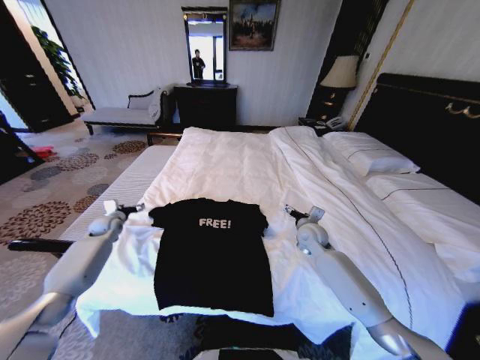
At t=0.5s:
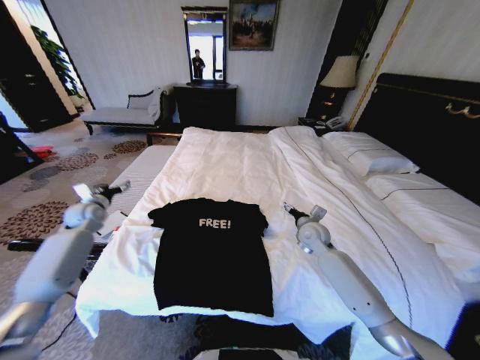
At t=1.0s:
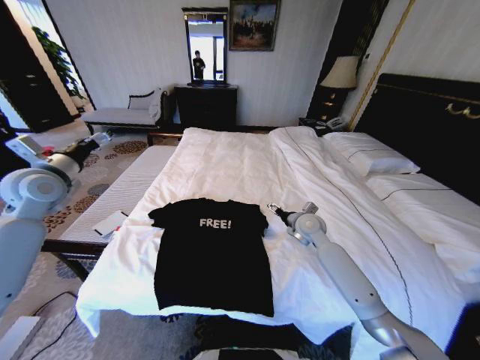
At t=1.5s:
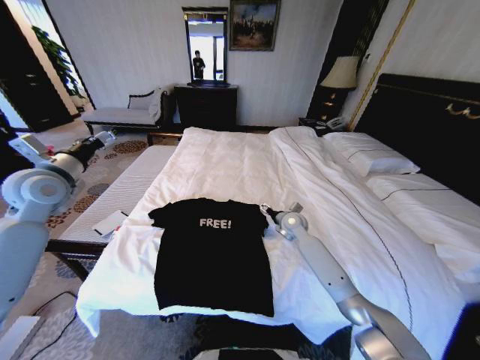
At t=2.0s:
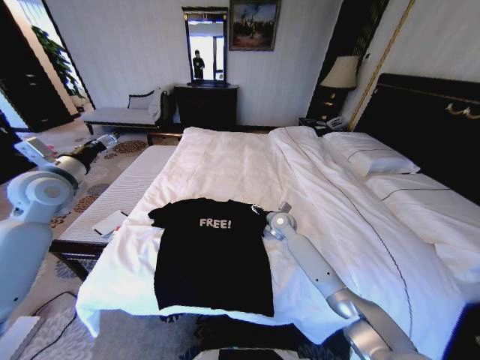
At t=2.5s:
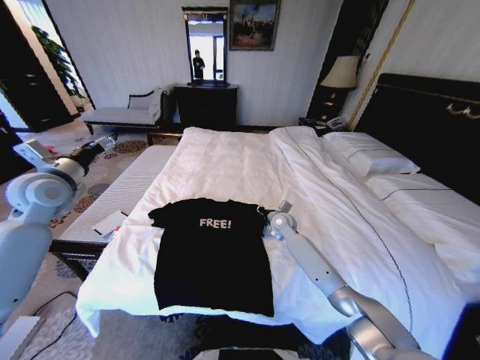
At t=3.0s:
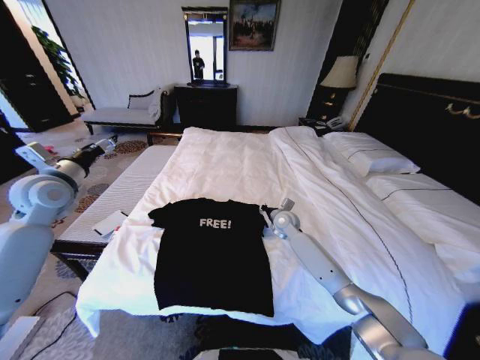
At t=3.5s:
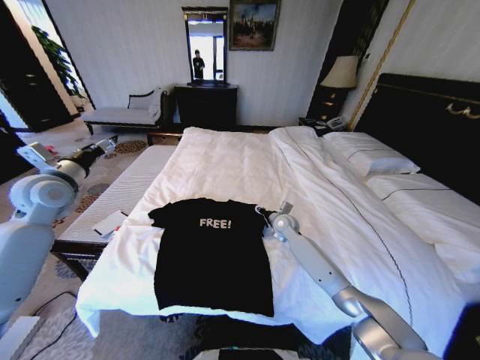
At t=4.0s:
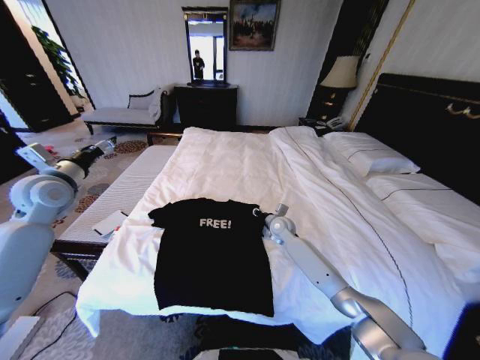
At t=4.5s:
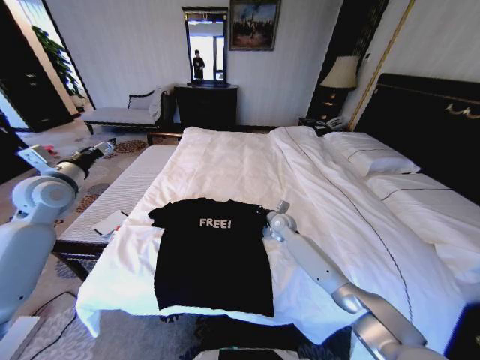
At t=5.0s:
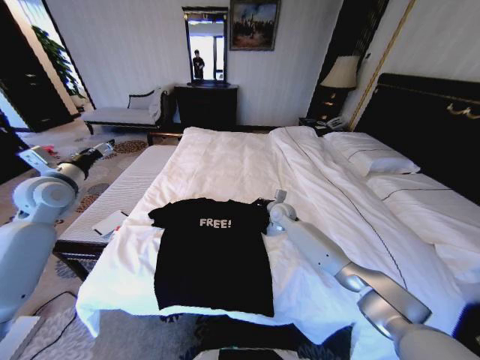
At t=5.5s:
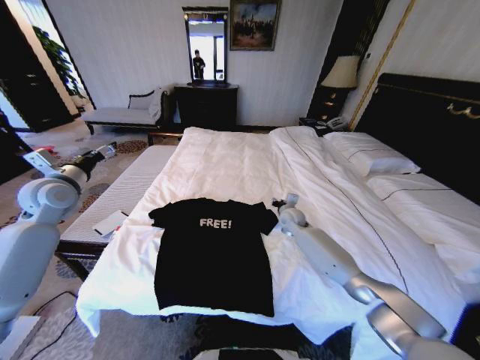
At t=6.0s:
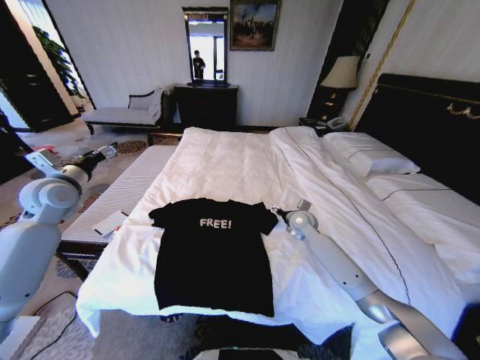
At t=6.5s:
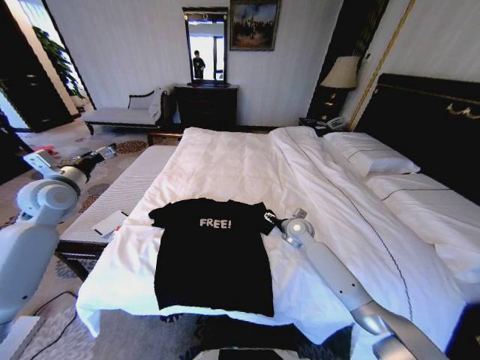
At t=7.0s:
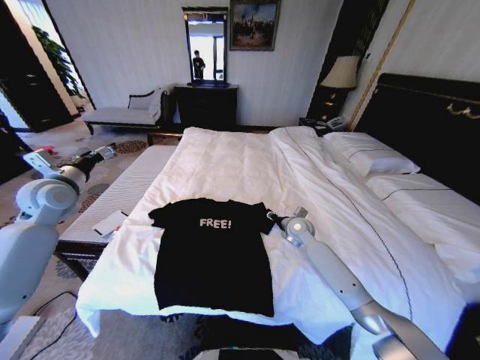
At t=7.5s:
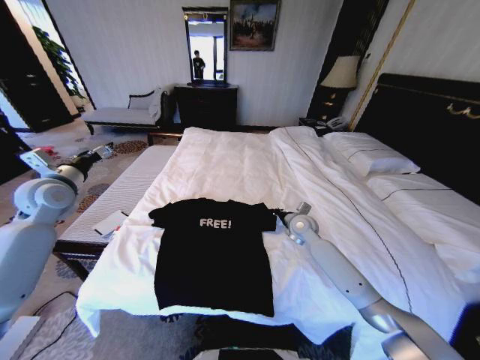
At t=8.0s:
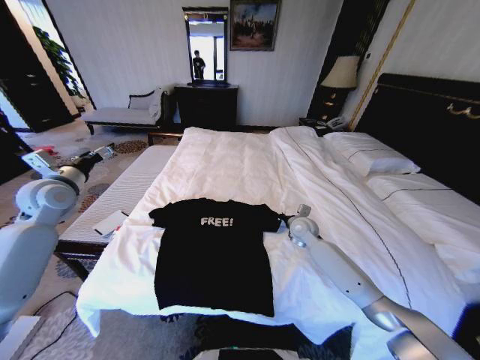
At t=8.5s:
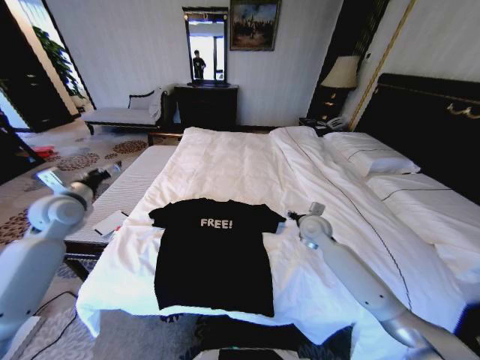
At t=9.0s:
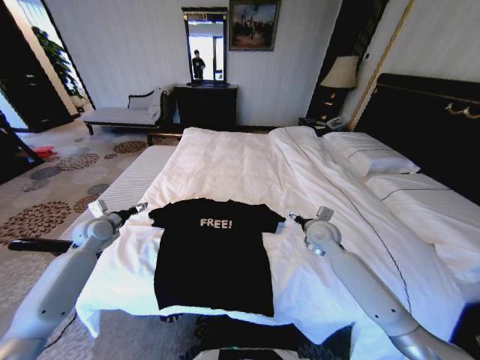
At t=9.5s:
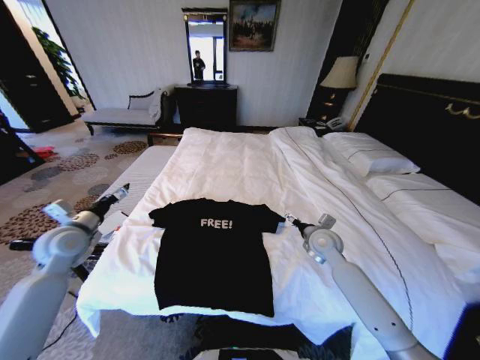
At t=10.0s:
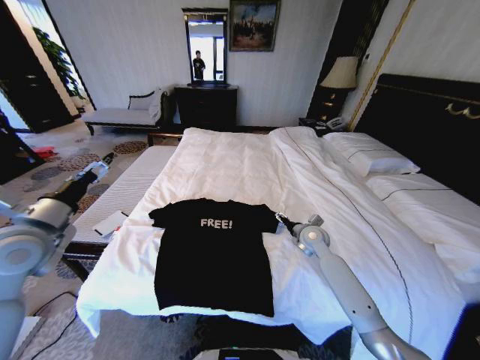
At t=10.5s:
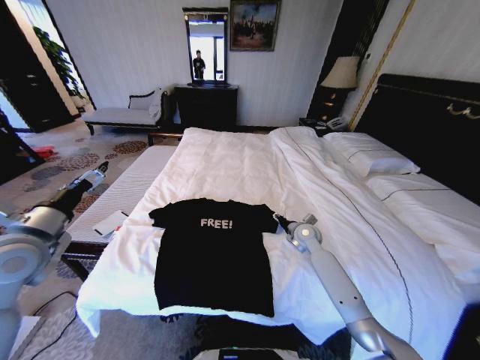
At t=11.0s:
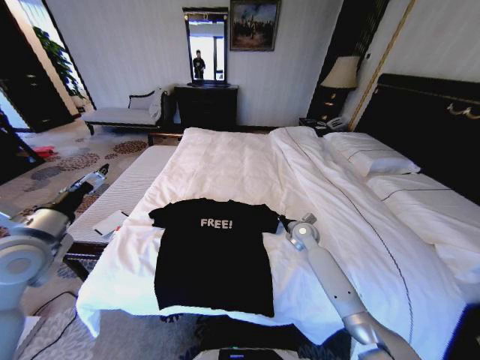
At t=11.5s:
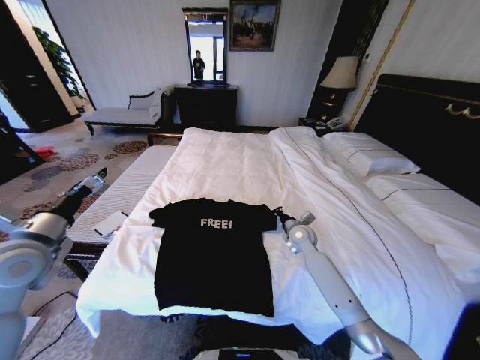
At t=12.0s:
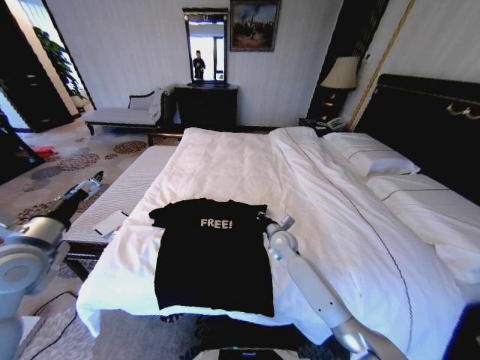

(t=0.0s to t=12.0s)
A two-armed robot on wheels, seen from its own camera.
Task of the whole recording: Fold the clothes on the bed.
t=0.0s - t=2.0s: The right gripper heads to the left and forward, covering about 10 cm; the left gripper moves upward and backward, roughly 25 cm.
t=2.0s - t=4.0s: The right gripper closes up.
t=4.0s - t=6.0s: The right gripper shifts approximately 5 cm to the right, and opens up.
t=6.0s - t=8.0s: The right gripper closes up.
t=8.0s - t=10.0s: The left gripper is displaced backward and to the right by roughly 15 cm, and goes downward and returns, about 15 cm each way, while the right gripper opens its fingers.
t=10.0s - t=12.0s: The right gripper goes some 10 cm to the left, and closes its fingers.

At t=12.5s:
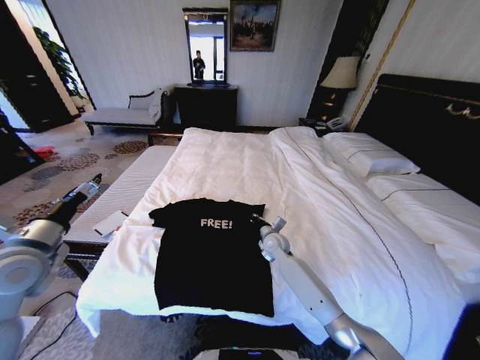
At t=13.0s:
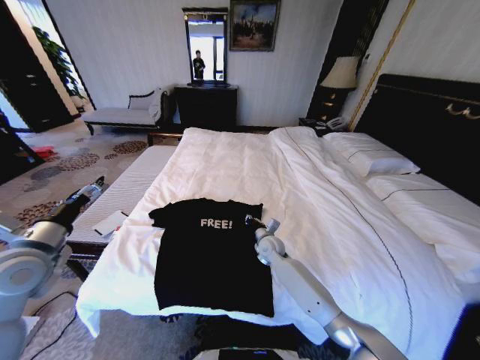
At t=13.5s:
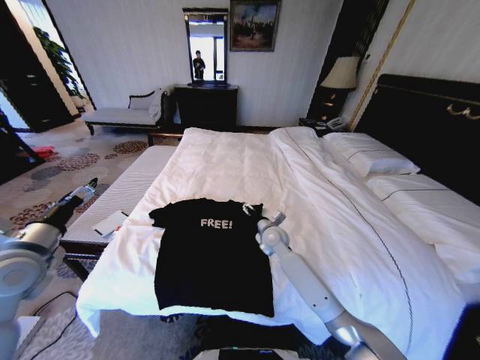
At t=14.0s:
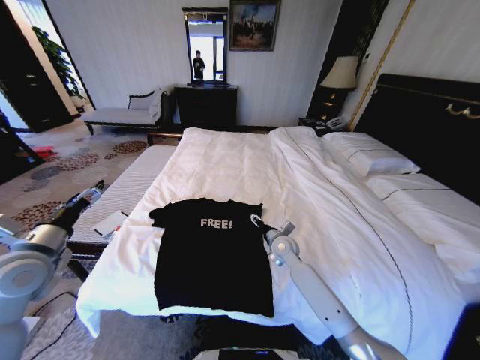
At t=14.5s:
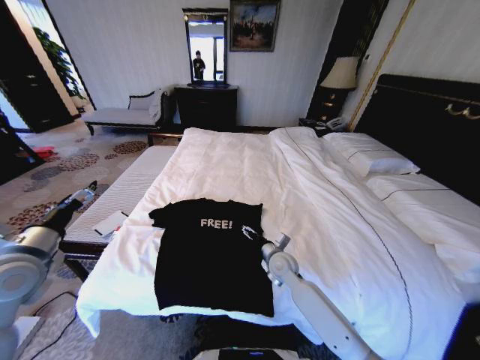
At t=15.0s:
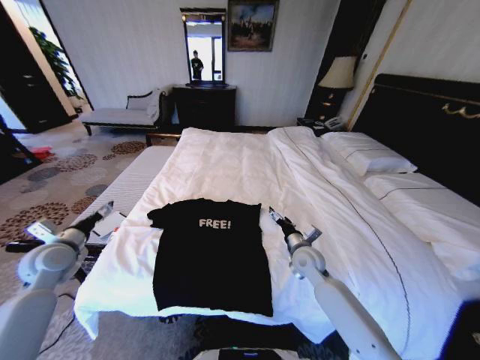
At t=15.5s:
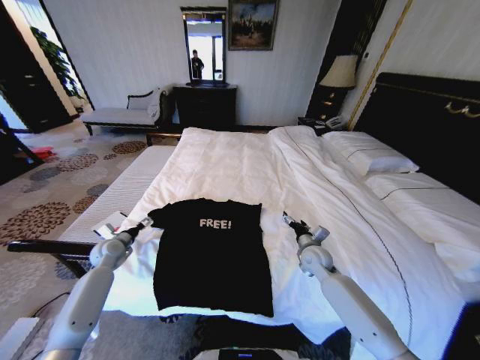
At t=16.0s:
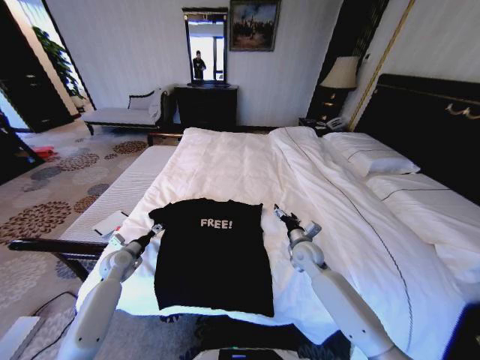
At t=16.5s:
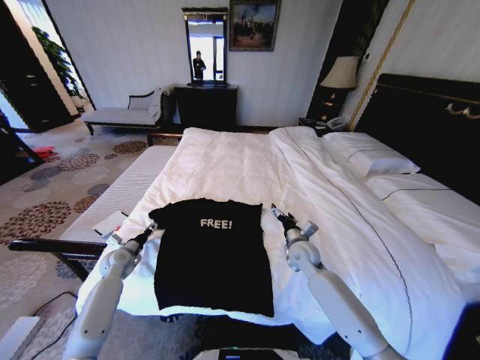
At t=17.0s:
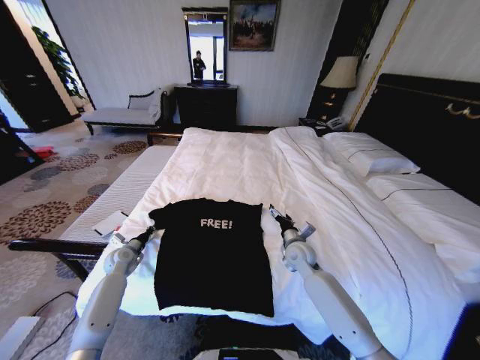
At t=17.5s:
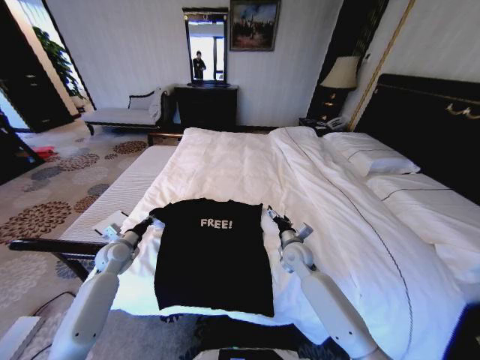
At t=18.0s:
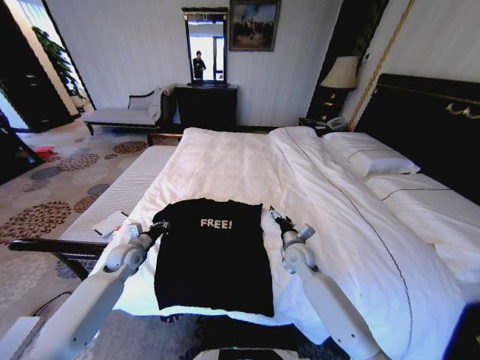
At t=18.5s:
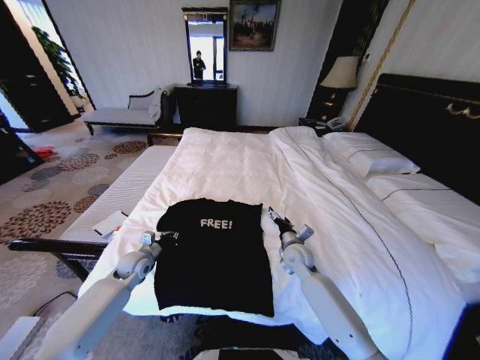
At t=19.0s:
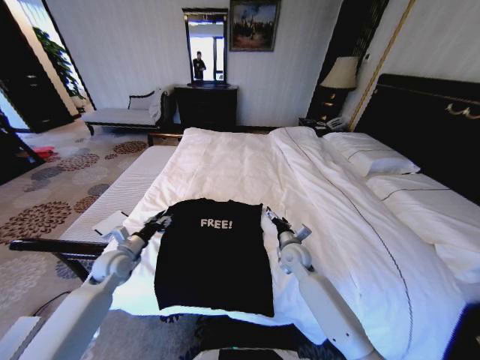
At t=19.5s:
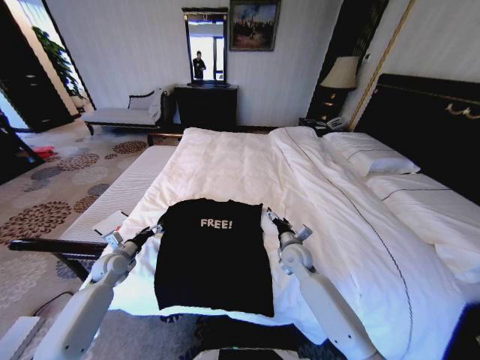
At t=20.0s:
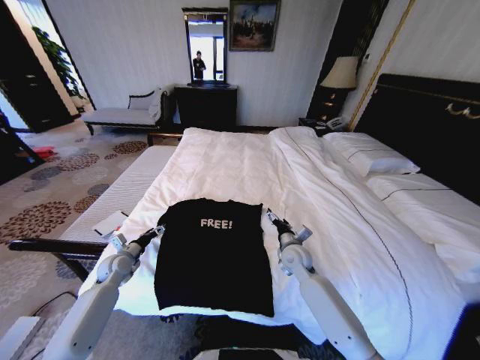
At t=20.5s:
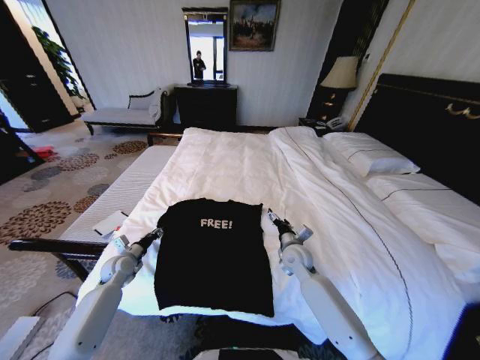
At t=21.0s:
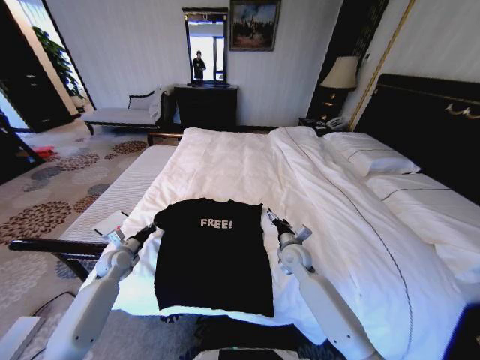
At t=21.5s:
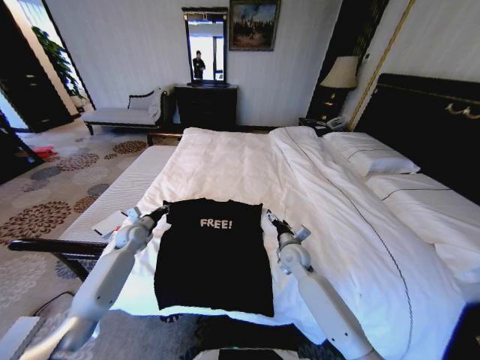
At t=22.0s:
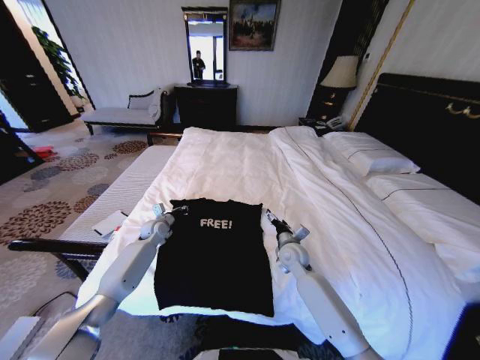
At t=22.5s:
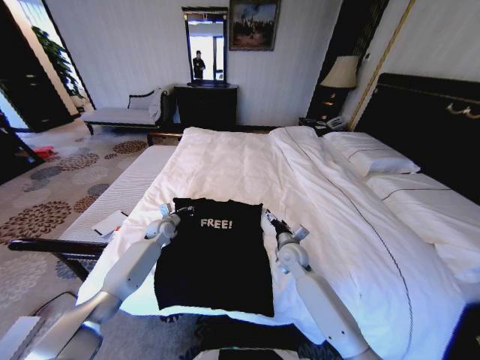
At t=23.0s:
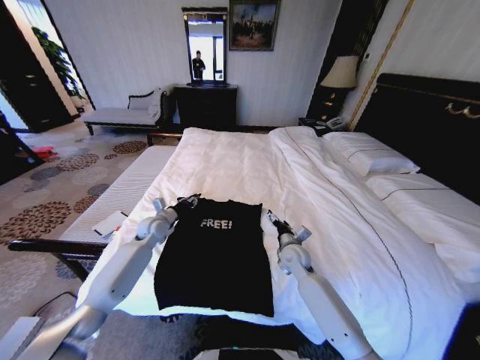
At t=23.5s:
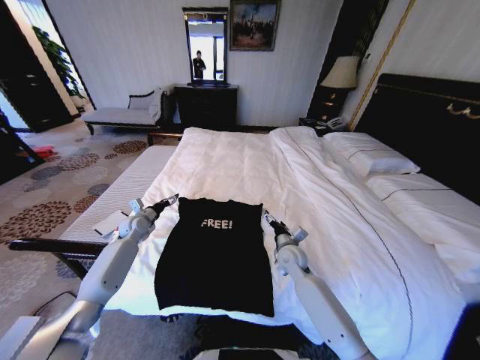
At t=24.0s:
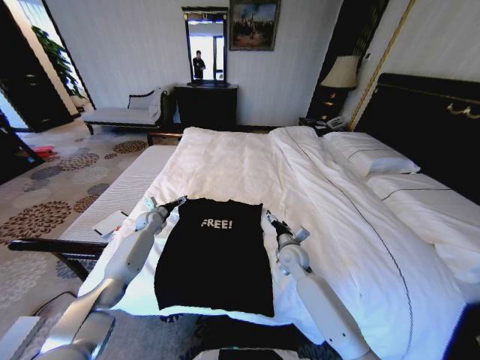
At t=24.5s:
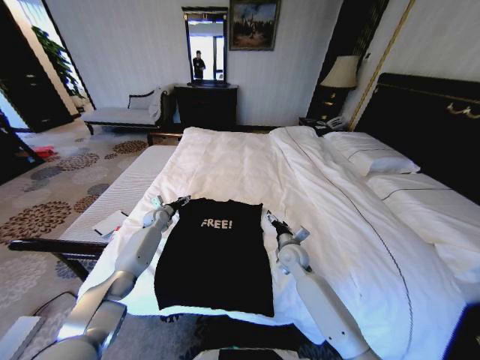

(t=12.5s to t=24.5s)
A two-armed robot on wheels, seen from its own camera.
Task of the whole recording: Fold the clothes on the bed.
t=12.5s - t=14.5s: The right gripper moves backward, roughly 10 cm, and opens.
t=14.5s - t=16.5s: The right gripper shifts roughly 5 cm to the right. The left gripper shifts roughly 30 cm downward and forward.
t=16.5s - t=18.5s: The left gripper travels to the right by about 10 cm, and closes its fingers.
t=18.5s - t=20.5s: The left gripper goes some 5 cm to the left, and opens up.
t=20.5s - t=22.5s: The left gripper is displaced forward and to the right by approximately 20 cm, and closes.
t=22.5s - t=24.5s: The left gripper is displaced forward by roughly 5 cm, and opens.

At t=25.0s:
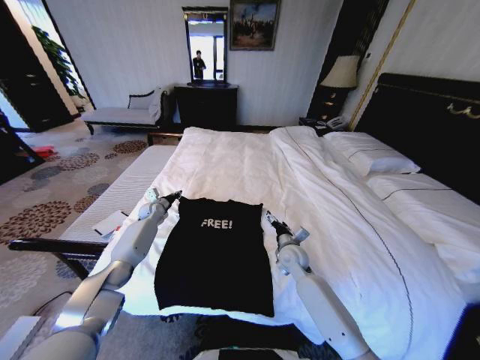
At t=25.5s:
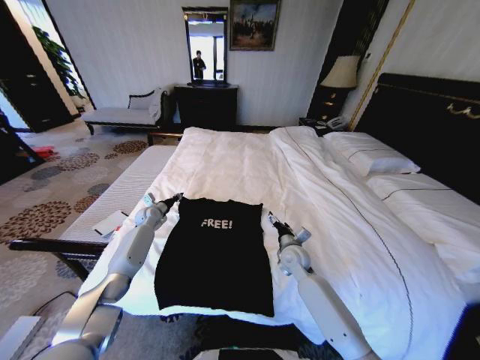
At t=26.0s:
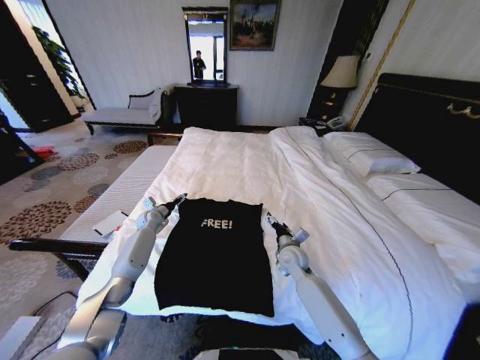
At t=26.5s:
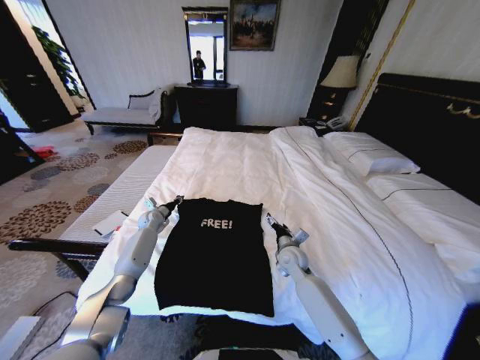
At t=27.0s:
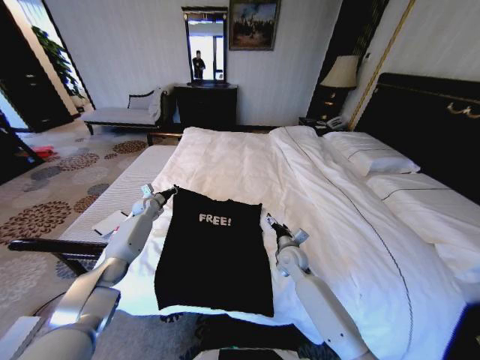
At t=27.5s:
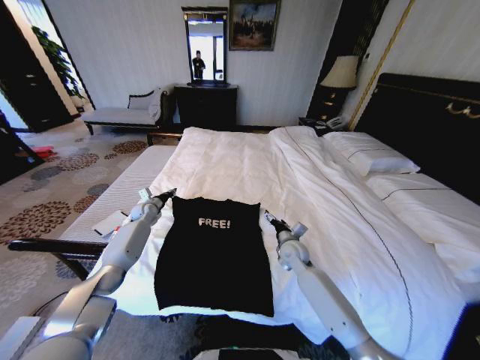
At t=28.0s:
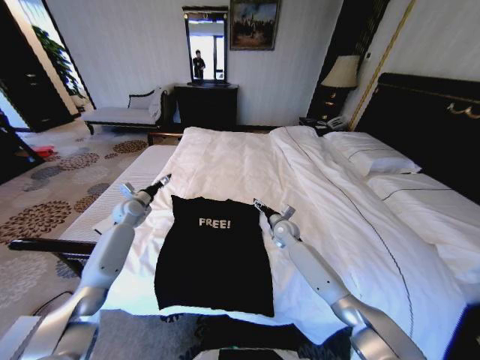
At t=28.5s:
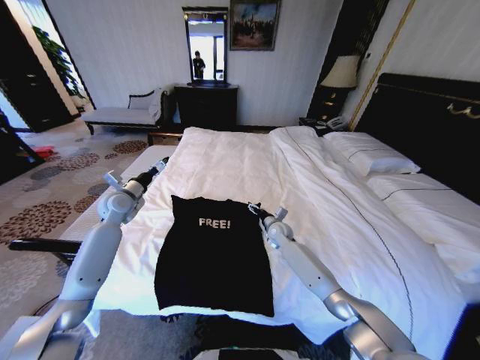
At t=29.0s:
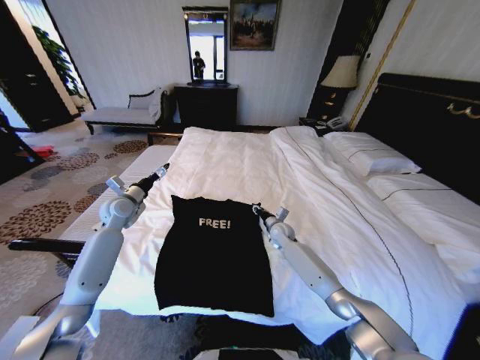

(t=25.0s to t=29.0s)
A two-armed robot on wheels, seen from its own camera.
Task of the whole recording: Fold the clothes on the bed.
t=25.0s - t=27.0s: The left gripper opens, then closes once more.
t=27.0s - t=29.0s: The left gripper shifts some 15 cm backward and upward, and opens; the right gripper moves forward, some 10 cm, and closes up.
